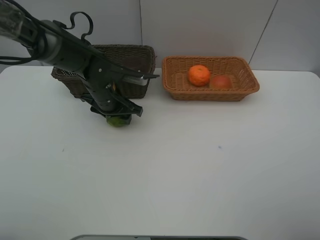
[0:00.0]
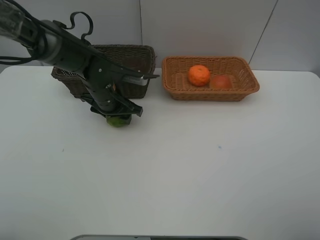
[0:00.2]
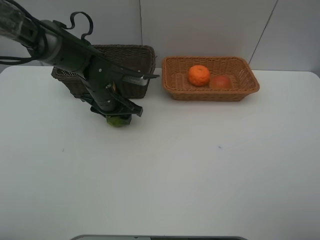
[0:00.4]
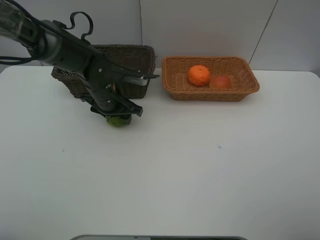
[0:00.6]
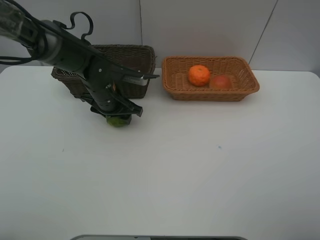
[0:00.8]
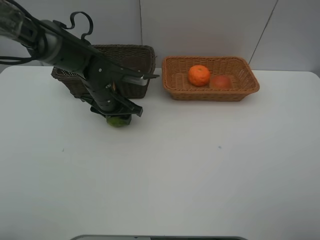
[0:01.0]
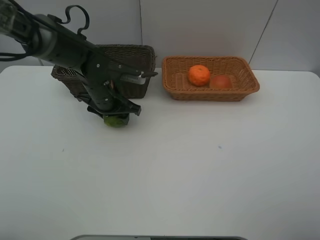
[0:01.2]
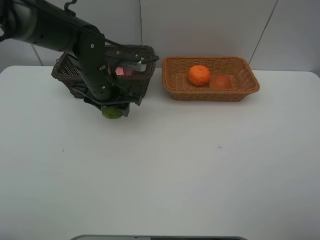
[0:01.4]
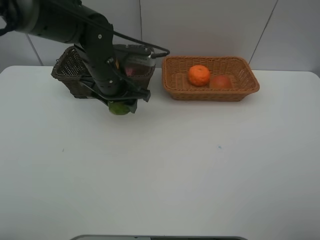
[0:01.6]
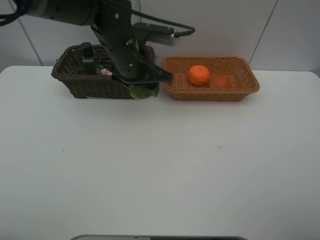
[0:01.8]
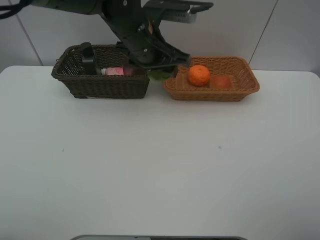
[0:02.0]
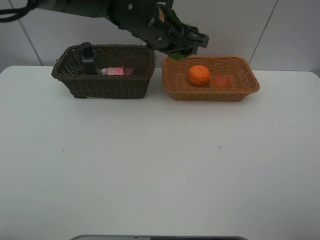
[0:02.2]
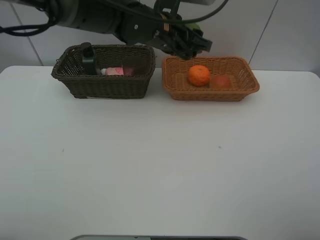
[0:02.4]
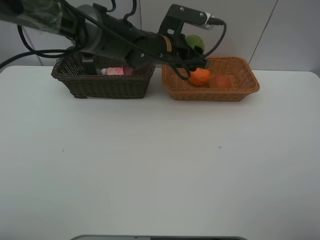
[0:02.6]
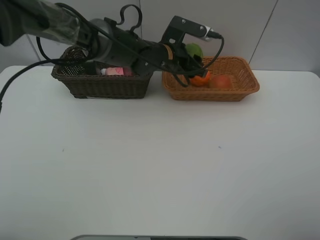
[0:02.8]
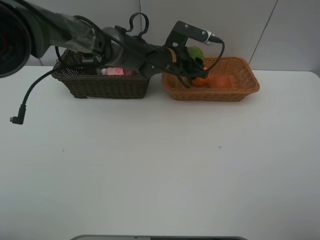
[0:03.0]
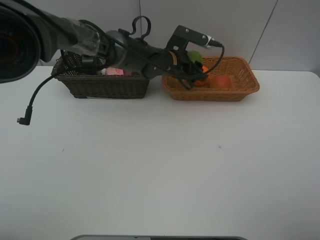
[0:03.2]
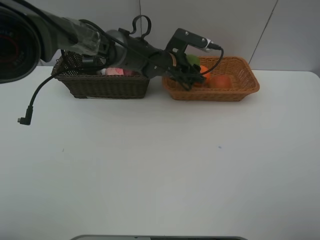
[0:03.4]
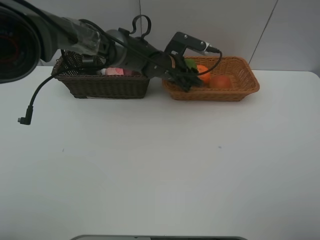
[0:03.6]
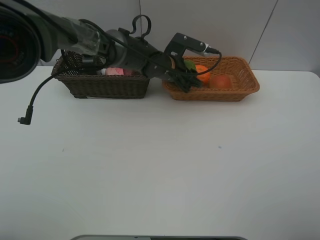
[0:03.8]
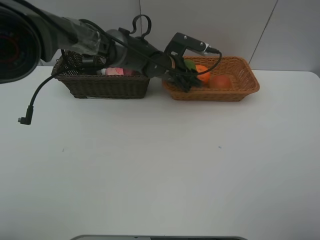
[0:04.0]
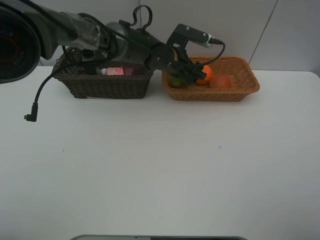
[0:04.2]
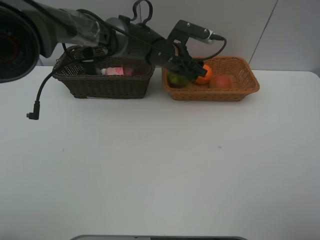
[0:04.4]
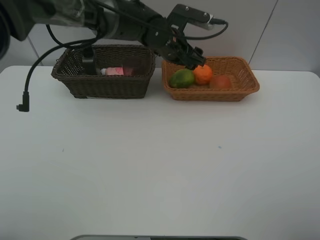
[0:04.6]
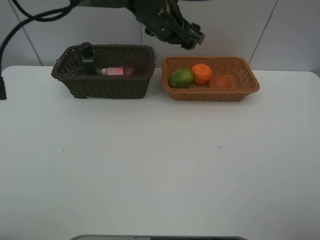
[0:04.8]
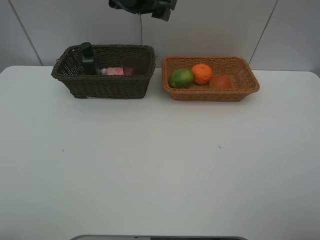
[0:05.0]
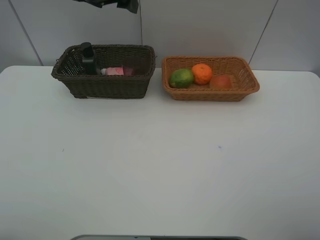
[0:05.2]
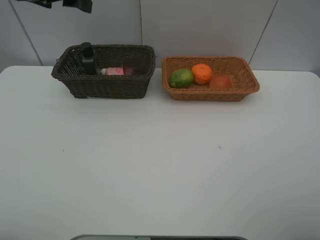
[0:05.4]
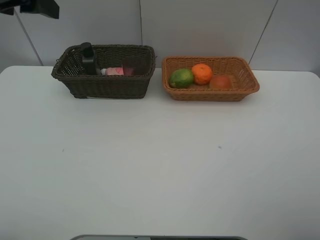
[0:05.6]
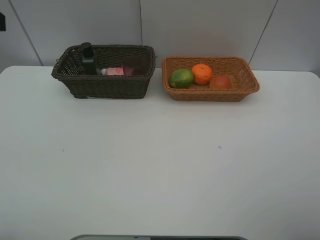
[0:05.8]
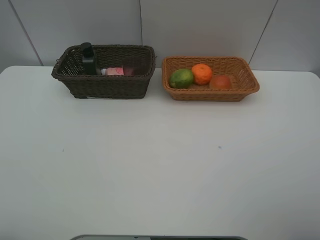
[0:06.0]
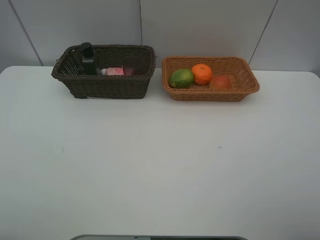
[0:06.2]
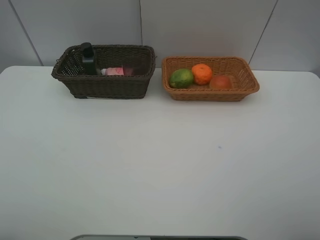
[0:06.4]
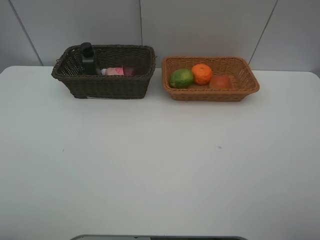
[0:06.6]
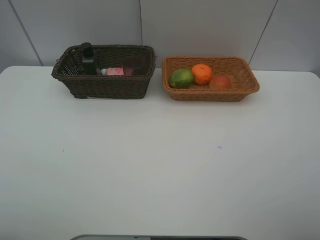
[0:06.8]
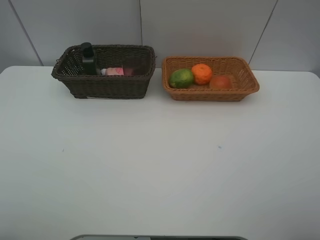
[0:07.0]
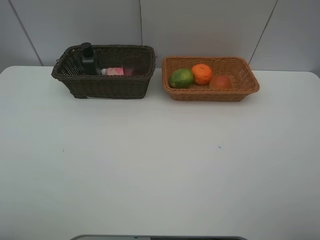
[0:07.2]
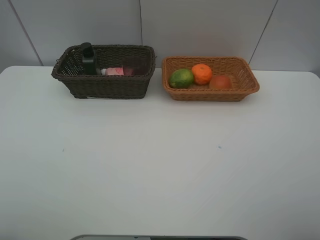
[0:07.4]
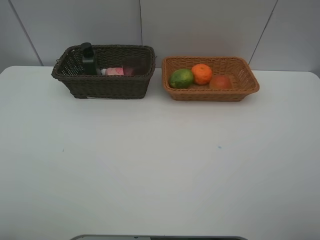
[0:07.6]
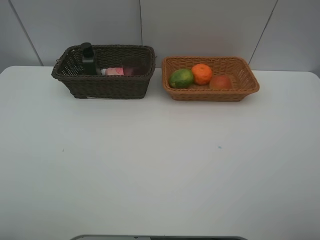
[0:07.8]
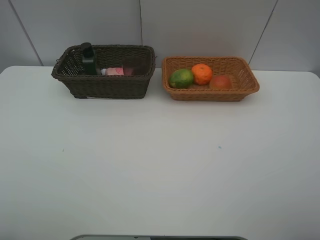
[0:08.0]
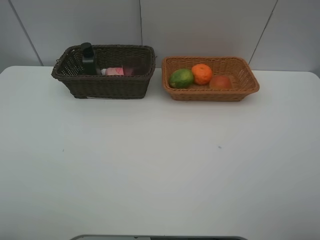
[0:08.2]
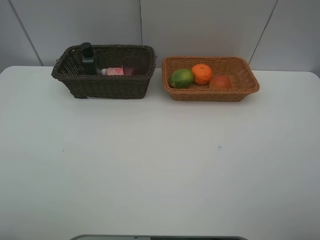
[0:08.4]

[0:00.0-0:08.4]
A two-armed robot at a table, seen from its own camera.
Task of the whole recording: place multiple objects separately in different baskets.
0:00.0 to 0:01.4: The left gripper goes about 5 cm upward.
0:01.4 to 0:02.8: The left gripper travels to the right and forward by roughly 15 cm.
0:02.8 to 0:04.2: The grippers move only a little.
0:04.2 to 0:05.6: The left gripper heads to the left, upward and backward, covering some 40 cm.
0:05.6 to 0:07.0: The left gripper travels backward by roughly 25 cm.

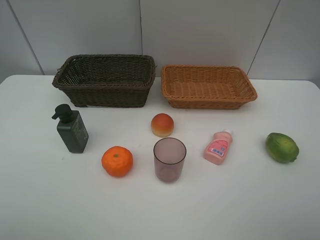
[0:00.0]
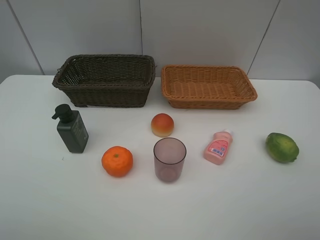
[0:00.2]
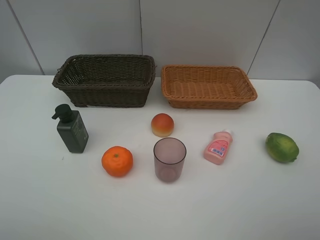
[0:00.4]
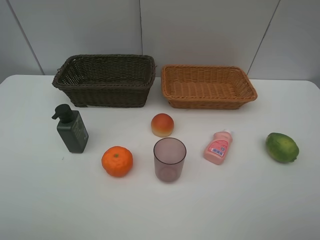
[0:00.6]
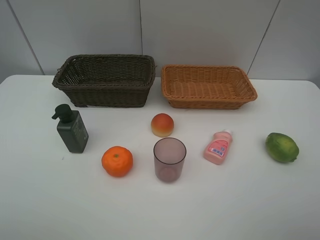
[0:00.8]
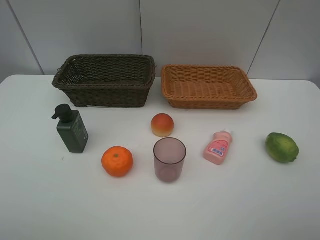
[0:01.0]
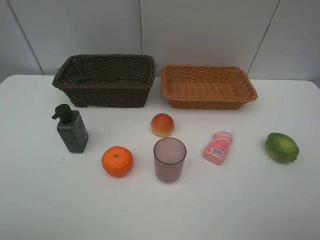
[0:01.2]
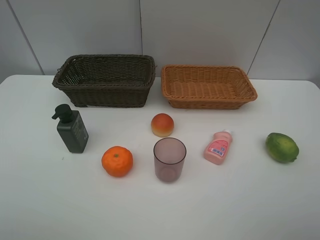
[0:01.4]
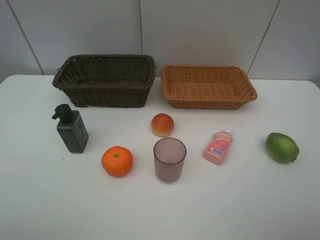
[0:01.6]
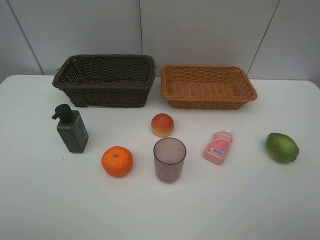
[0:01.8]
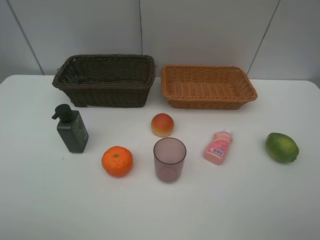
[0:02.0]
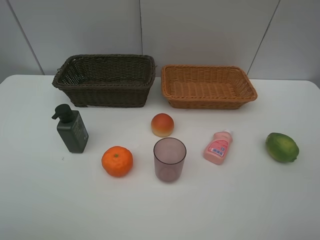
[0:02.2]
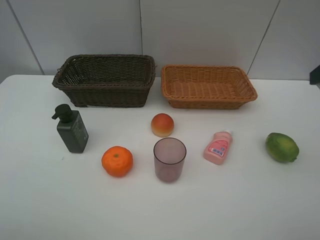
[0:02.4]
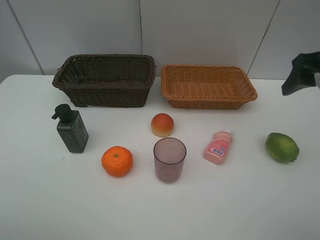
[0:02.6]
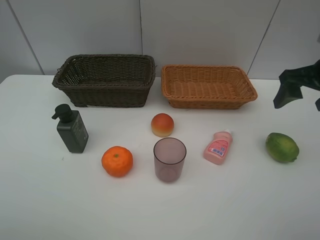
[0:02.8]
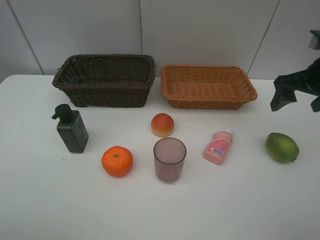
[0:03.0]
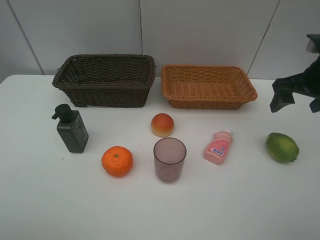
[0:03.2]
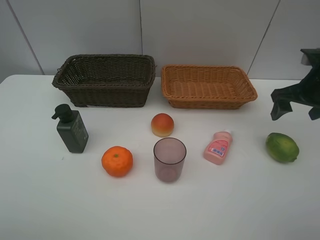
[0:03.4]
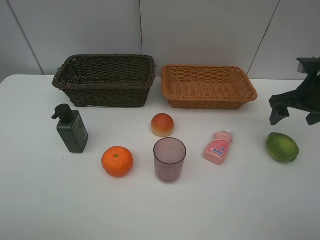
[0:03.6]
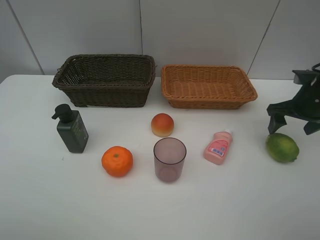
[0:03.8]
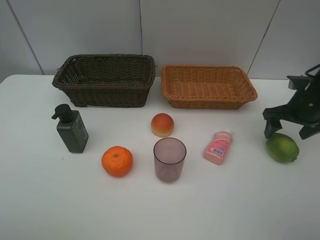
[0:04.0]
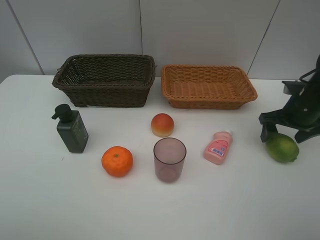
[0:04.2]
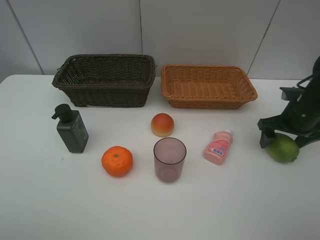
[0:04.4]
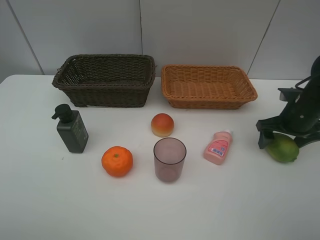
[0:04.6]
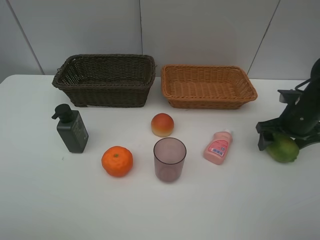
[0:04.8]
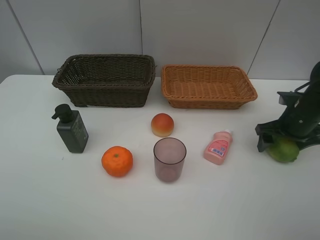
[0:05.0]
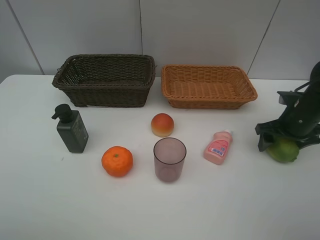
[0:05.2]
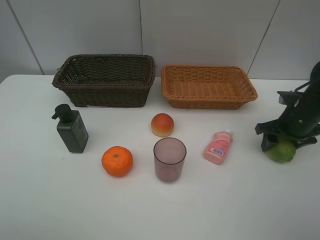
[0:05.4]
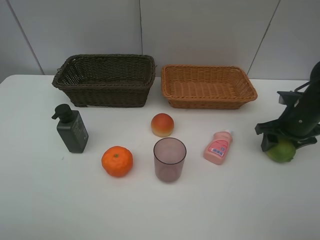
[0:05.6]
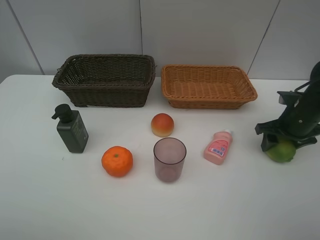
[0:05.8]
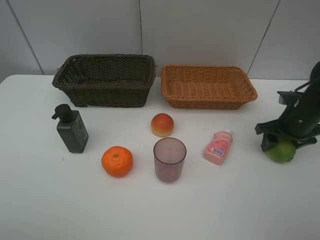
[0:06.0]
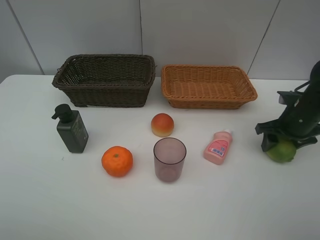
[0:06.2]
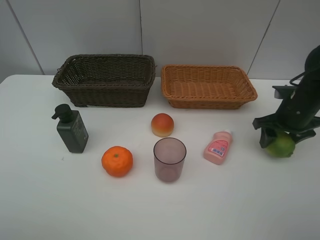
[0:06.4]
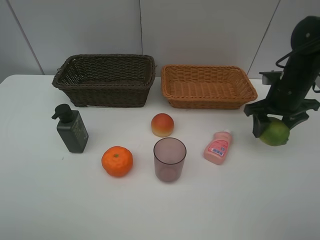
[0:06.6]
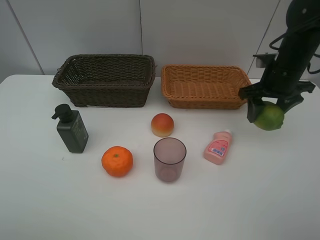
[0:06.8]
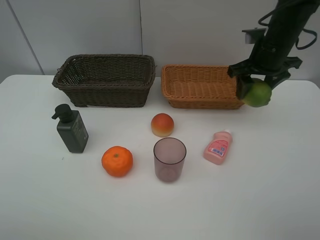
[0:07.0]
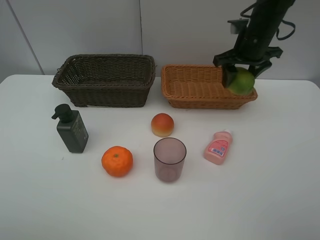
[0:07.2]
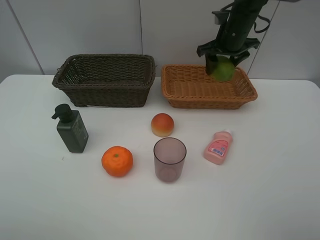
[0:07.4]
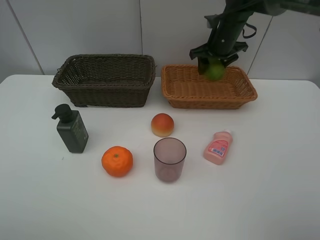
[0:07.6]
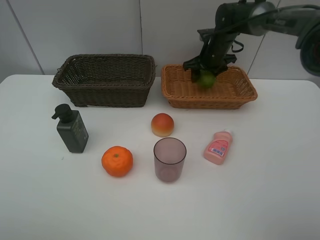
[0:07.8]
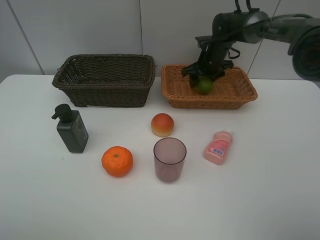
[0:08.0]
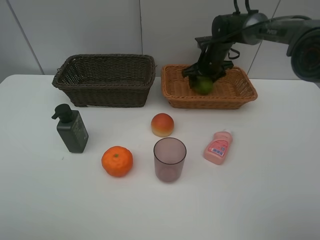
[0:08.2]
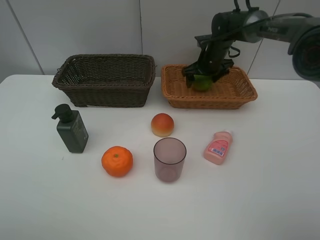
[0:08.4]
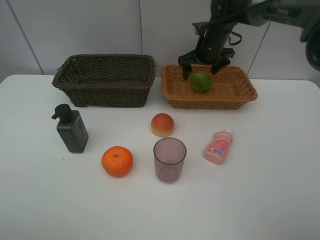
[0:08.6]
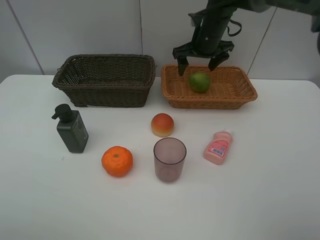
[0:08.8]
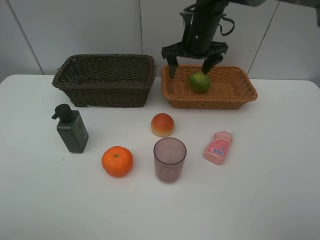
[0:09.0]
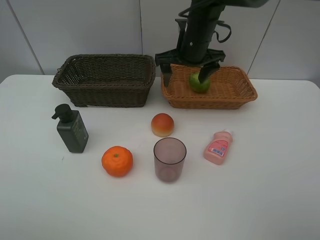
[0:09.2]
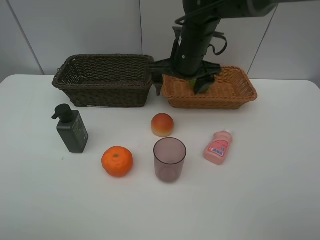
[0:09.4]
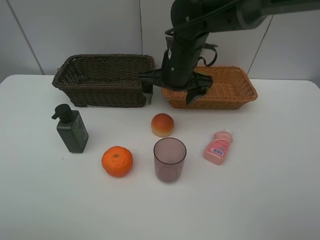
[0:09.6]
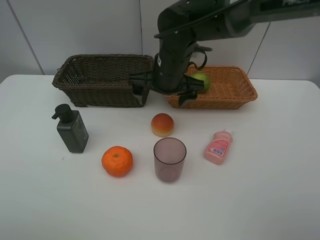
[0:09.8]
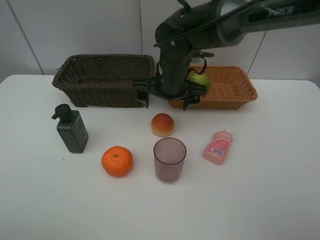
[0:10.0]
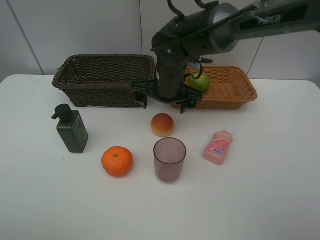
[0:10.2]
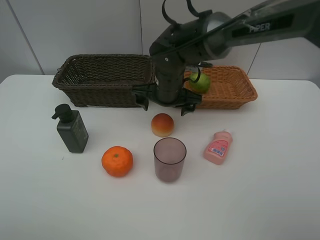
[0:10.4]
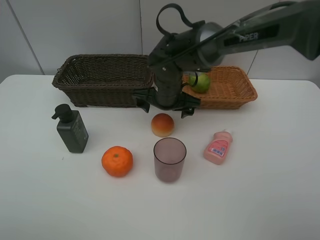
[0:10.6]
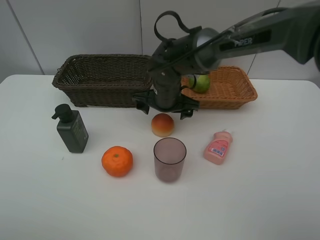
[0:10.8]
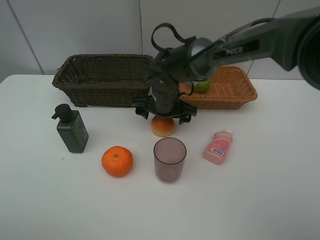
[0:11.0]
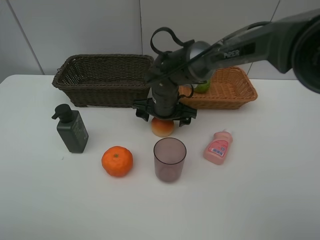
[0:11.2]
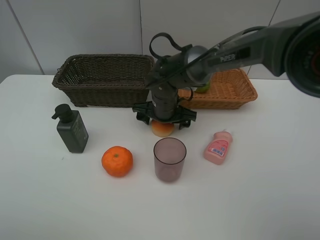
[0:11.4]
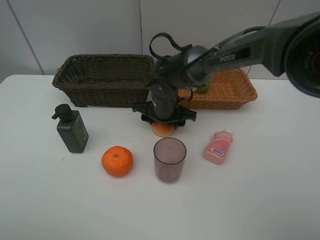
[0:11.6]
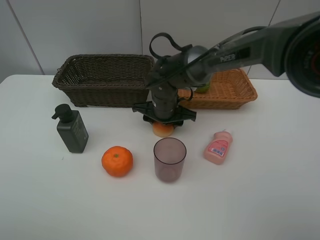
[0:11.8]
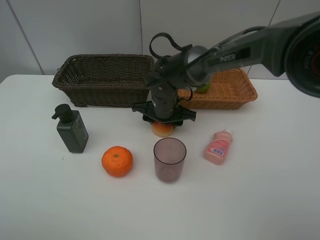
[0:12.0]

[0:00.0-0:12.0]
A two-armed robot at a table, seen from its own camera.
Task of the whole recording: place multiple objects separately in different baskets.
0:00.0 to 0:01.6: Neither gripper changes place.
0:01.6 to 0:03.0: The right gripper heads forward, covering roughly 25 cm.
0:03.0 to 0:04.4: The right gripper is displaced downward by approximately 10 cm.
0:04.4 to 0:06.0: The right gripper closes up.
0:06.0 to 0:07.6: The right gripper moves forward, to the left and upward, about 25 cm.
0:07.6 to 0:09.0: The right gripper is displaced to the left and backward by approximately 10 cm, goes downward and returns, some 5 cm each way, and opens.
0:09.0 to 0:10.4: The right gripper shifts about 15 cm downward, backward and to the left.
0:10.4 to 0:12.0: The right gripper travels downward by some 5 cm, and closes.

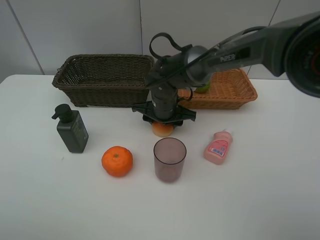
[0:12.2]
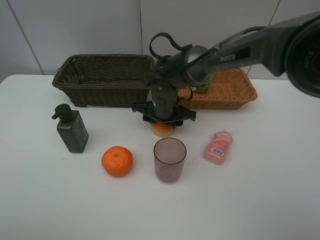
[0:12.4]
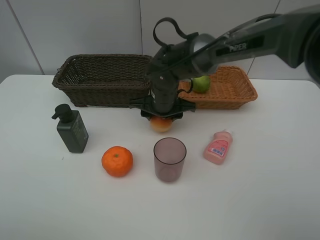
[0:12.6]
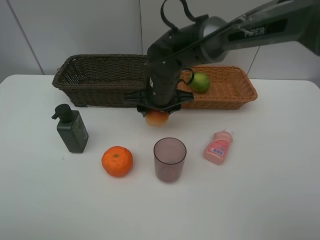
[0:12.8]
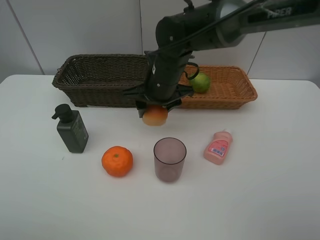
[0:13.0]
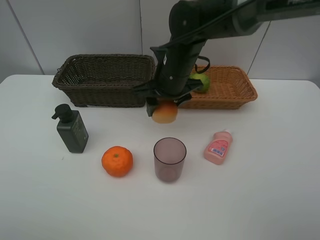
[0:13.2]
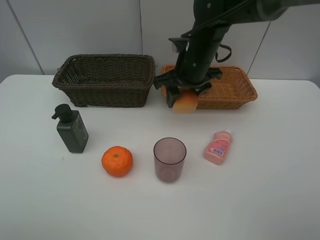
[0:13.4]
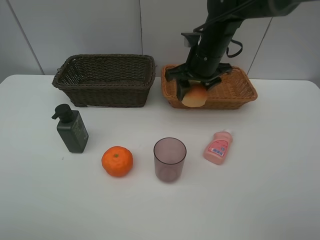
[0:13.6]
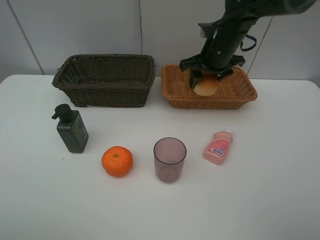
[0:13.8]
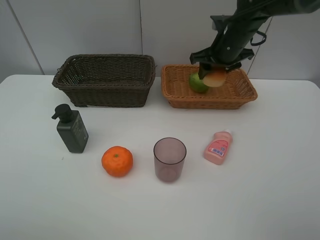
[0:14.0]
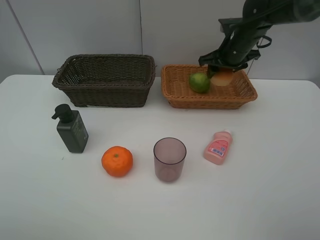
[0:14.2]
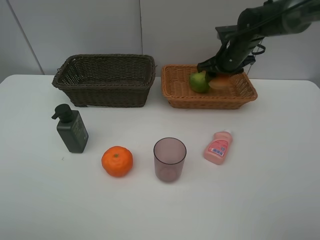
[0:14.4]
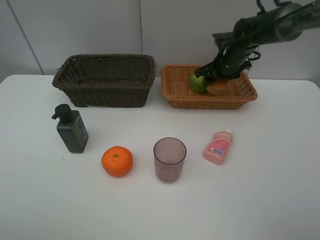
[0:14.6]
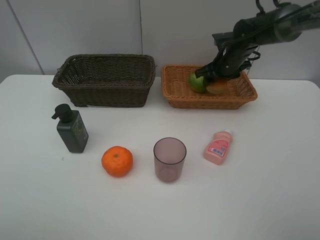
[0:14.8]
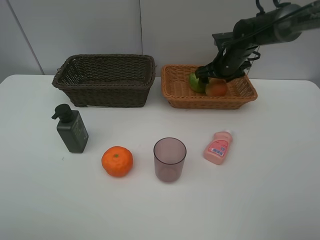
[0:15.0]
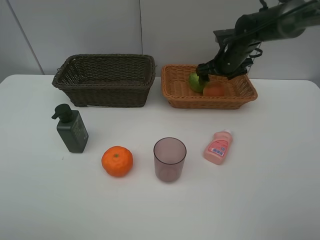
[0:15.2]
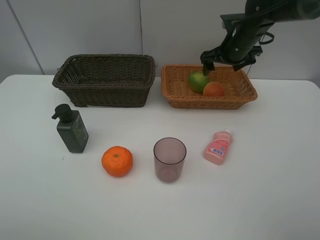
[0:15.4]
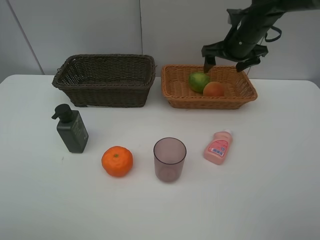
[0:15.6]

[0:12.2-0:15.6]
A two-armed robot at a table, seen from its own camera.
Task of the whole recording: place multiple objects separately in different baskets.
0:12.2 to 0:13.8: The right gripper travels to the right and upward by approximately 20 cm.
0:13.8 to 0:15.6: The right gripper opens its fingers.
